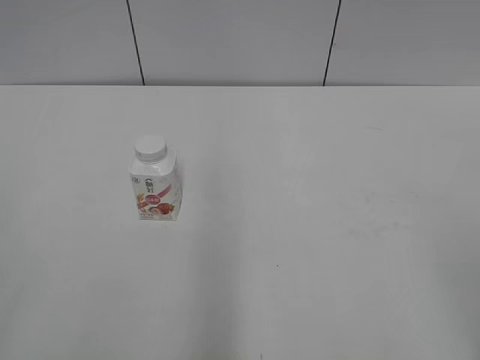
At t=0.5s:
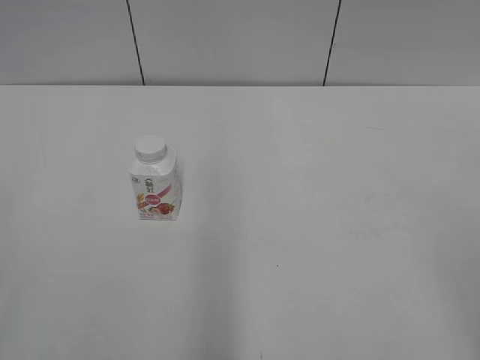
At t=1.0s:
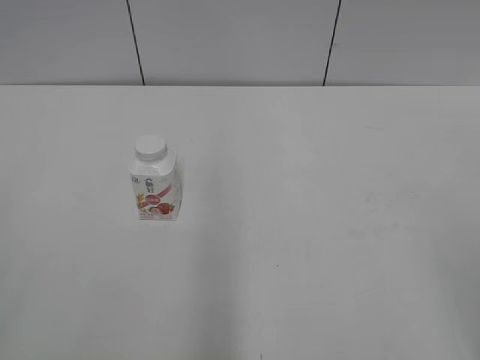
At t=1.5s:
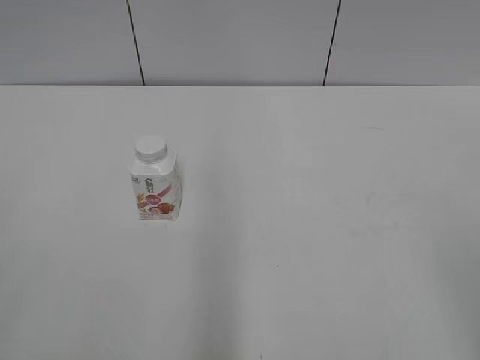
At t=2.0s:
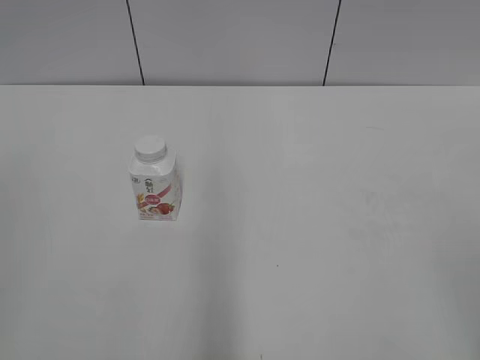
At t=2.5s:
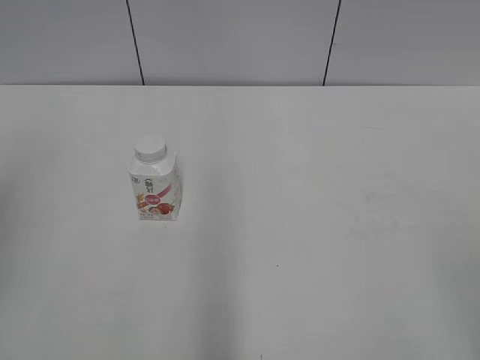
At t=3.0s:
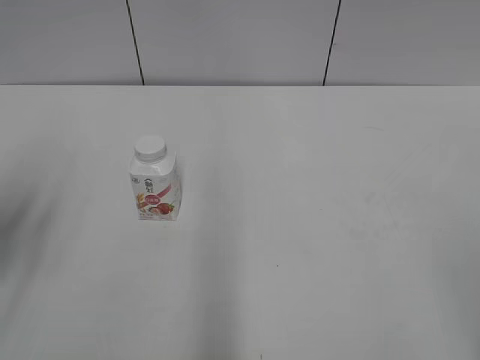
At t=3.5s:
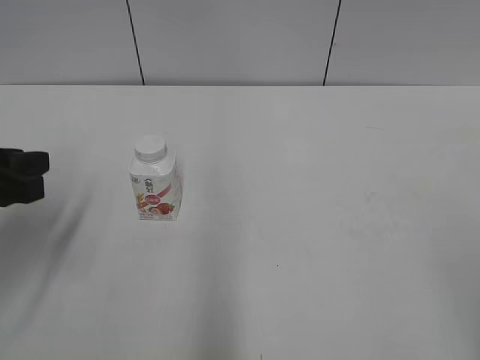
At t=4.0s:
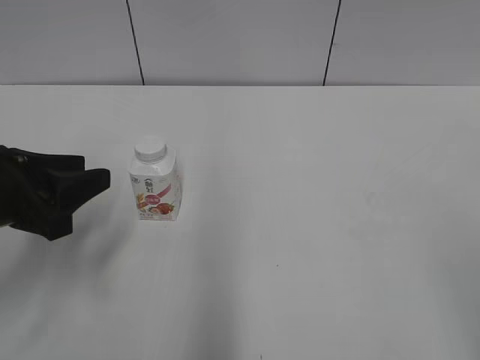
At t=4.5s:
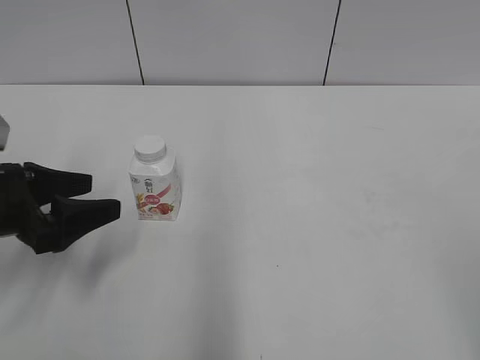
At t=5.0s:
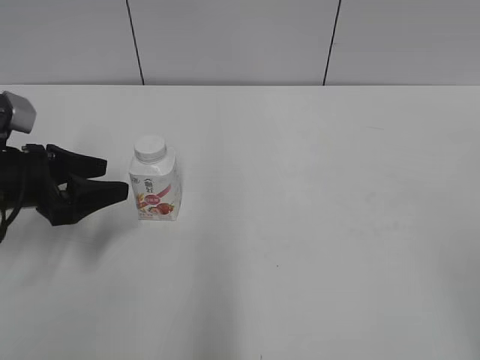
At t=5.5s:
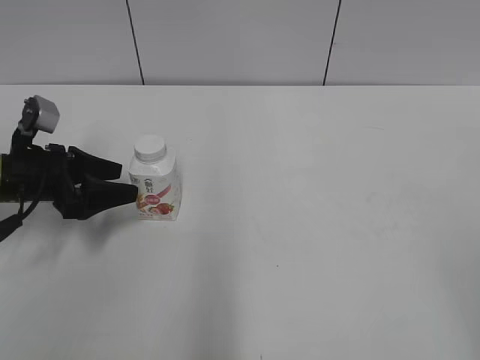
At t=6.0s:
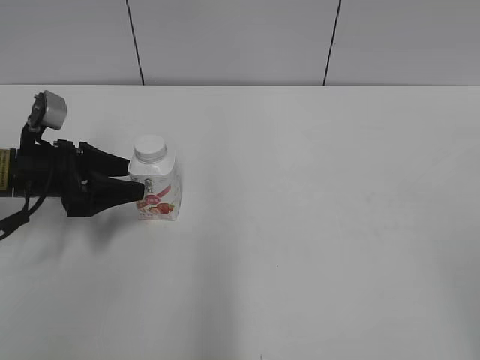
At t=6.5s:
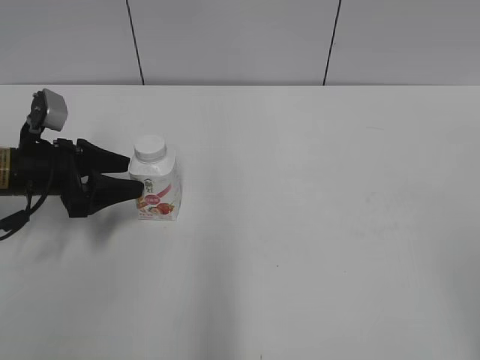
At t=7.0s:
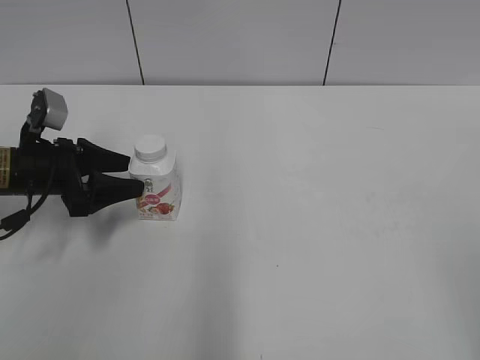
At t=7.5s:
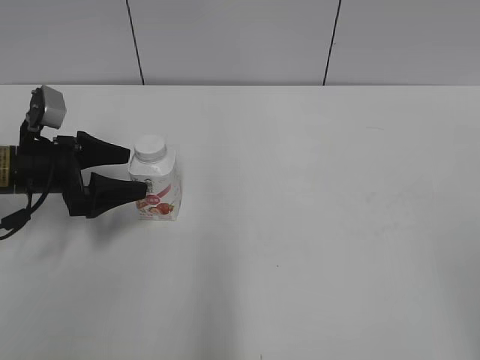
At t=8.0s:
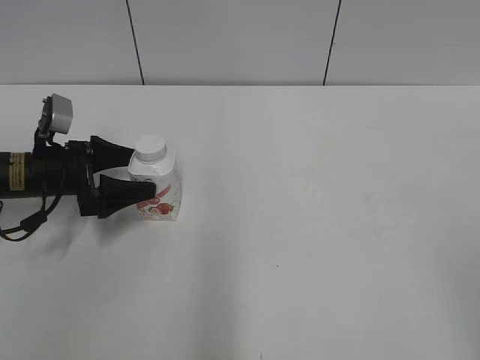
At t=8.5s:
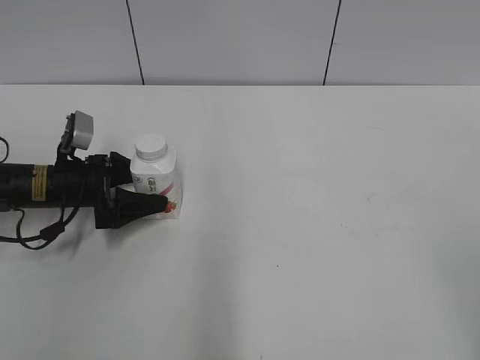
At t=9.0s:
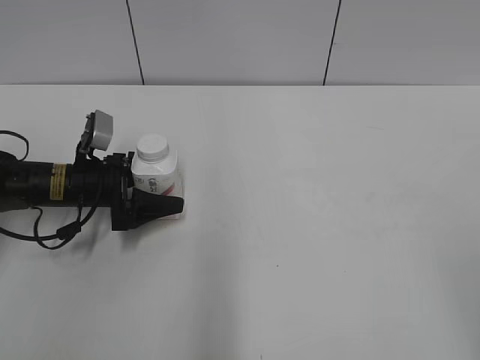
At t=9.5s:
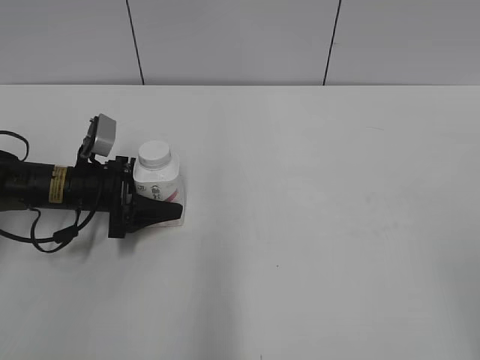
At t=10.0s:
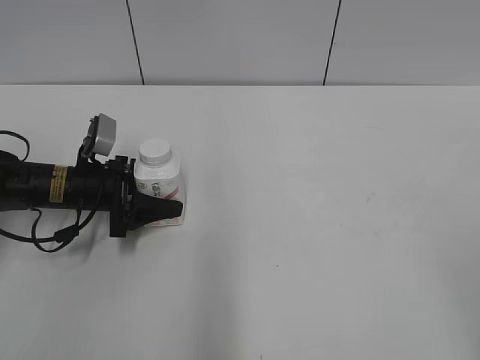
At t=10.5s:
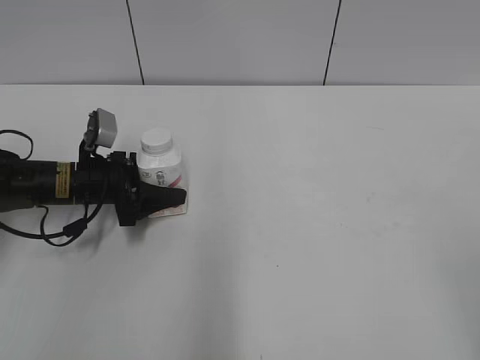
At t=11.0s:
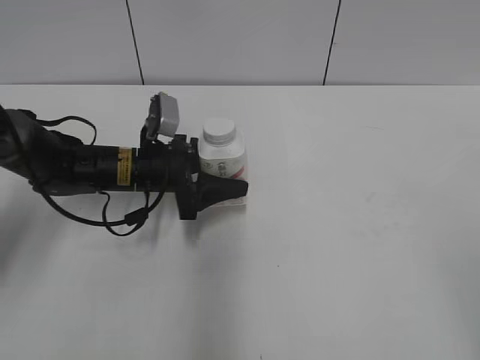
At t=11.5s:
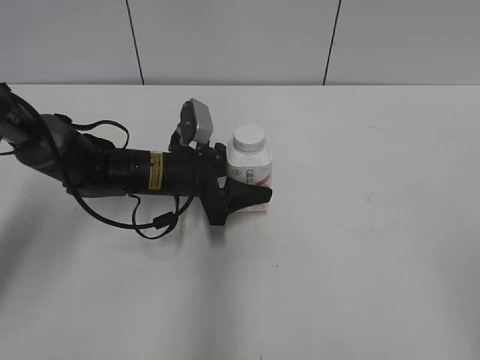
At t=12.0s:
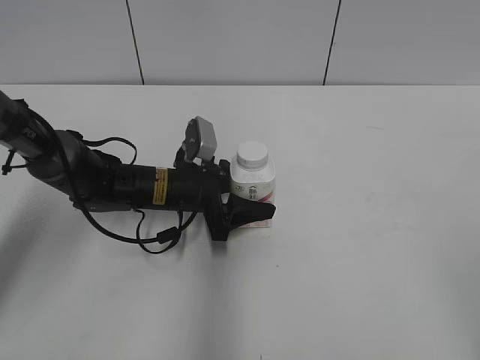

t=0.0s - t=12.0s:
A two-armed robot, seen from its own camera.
Step, t=0.0s - t=10.0s: Grab the Yili Changqing with the left hand.
t=2.0s - t=4.0s: The left gripper shifts roughly 25 cm forward, downward and to the right.
t=4.0s - t=6.0s: The left gripper is displaced forward and downward by some 15 cm, and opens its fingers.
t=6.0s - t=8.0s: The grippers make only small movements.
t=8.0s - t=10.0s: The left gripper closes.
t=10.0s - t=12.0s: The left gripper shifts some 15 cm to the right.

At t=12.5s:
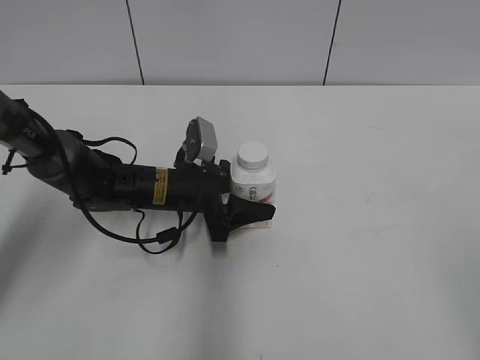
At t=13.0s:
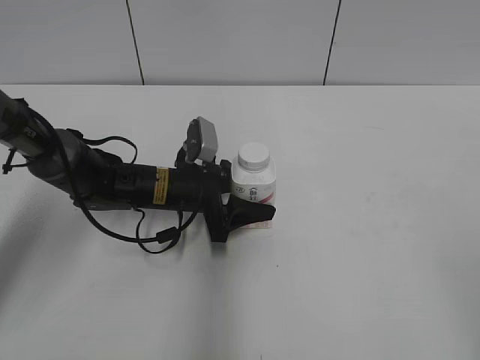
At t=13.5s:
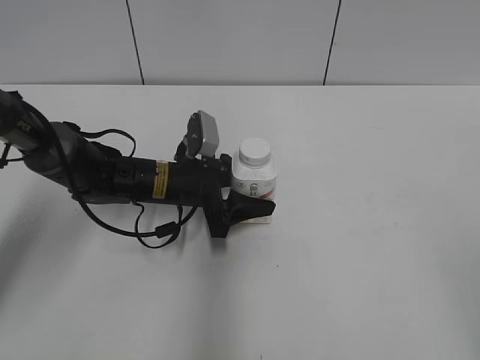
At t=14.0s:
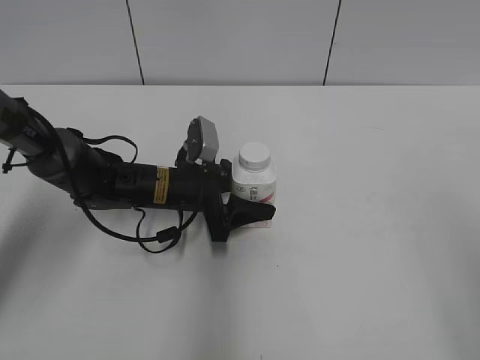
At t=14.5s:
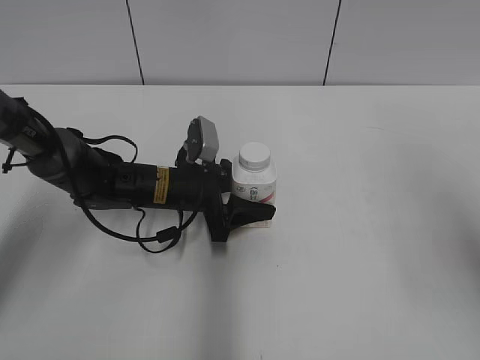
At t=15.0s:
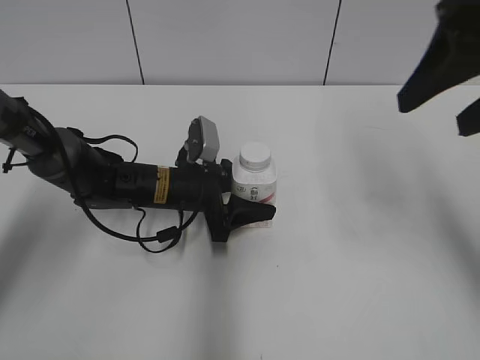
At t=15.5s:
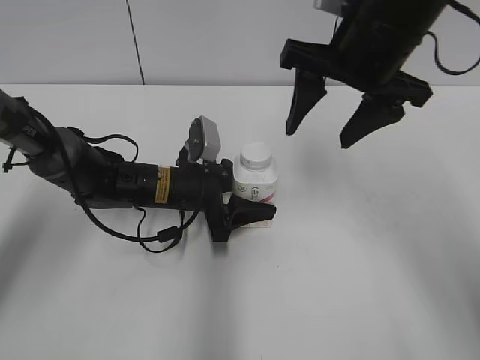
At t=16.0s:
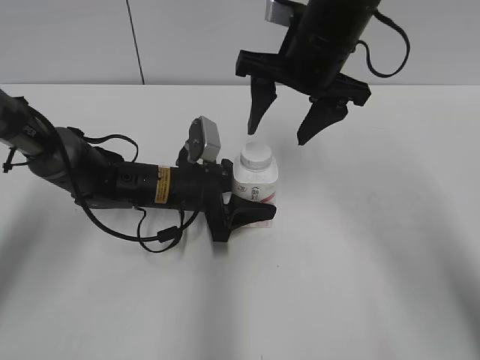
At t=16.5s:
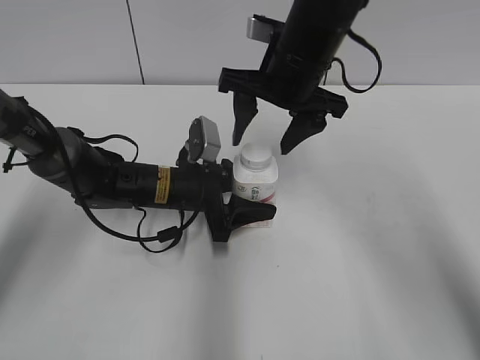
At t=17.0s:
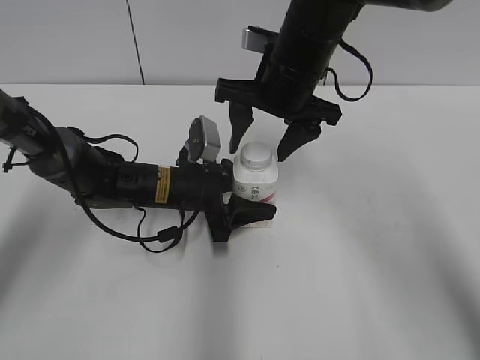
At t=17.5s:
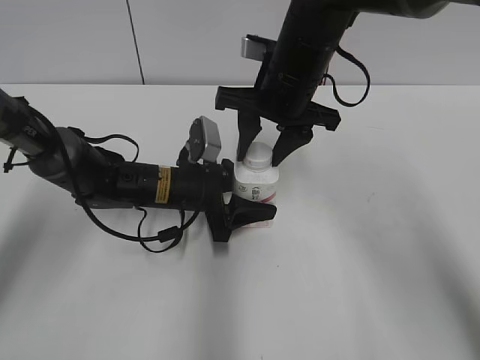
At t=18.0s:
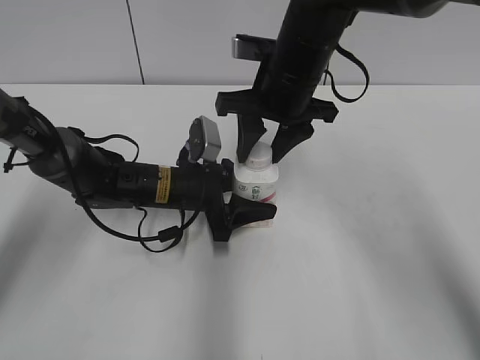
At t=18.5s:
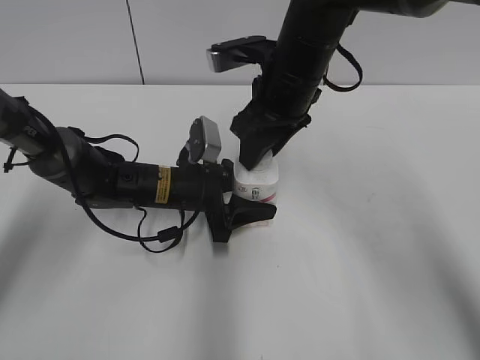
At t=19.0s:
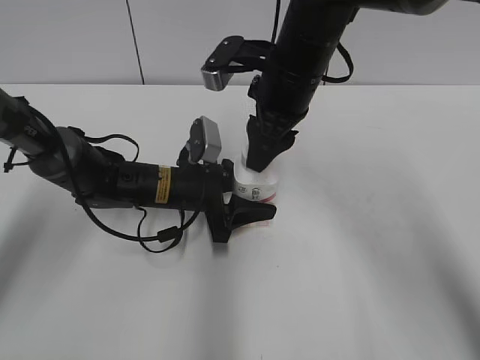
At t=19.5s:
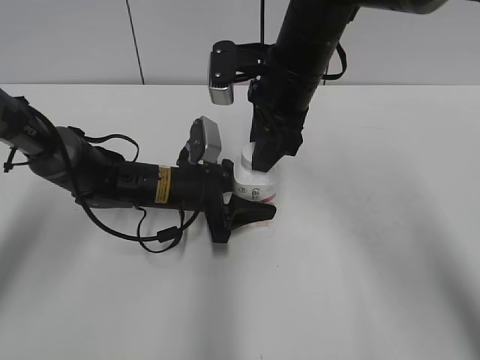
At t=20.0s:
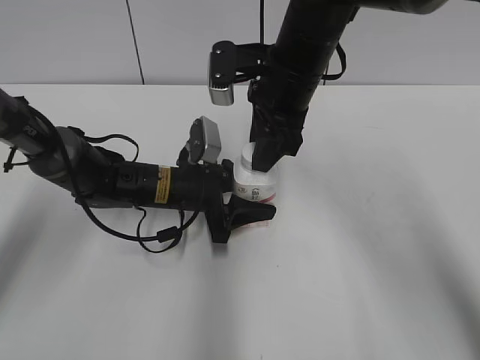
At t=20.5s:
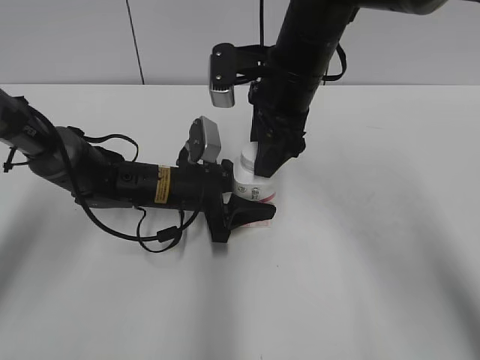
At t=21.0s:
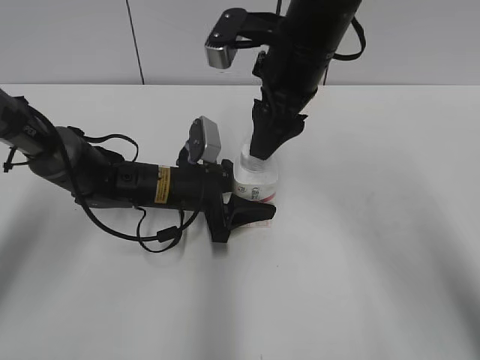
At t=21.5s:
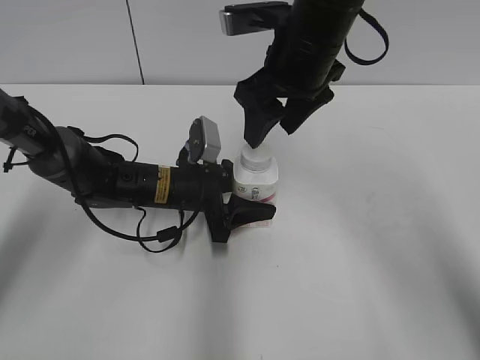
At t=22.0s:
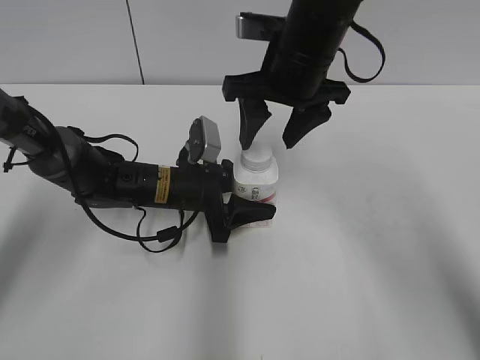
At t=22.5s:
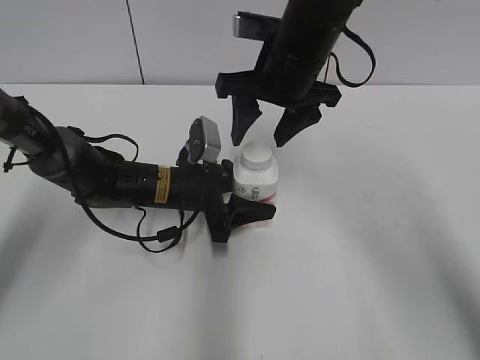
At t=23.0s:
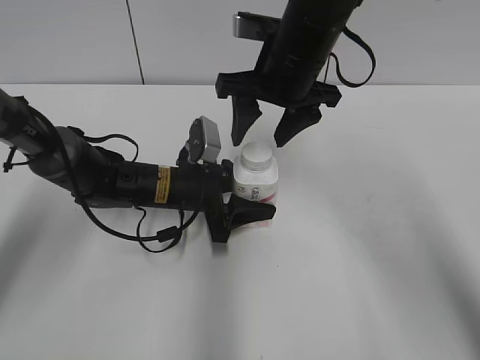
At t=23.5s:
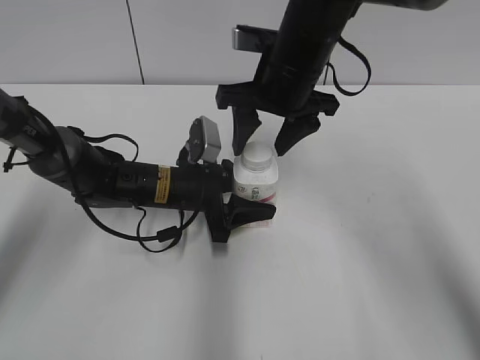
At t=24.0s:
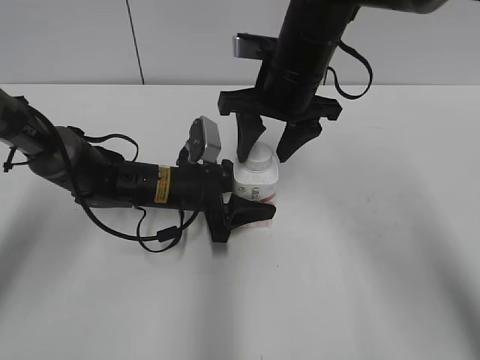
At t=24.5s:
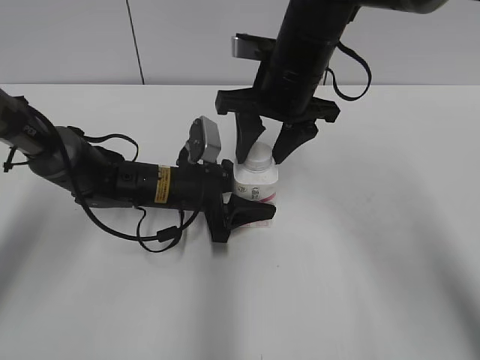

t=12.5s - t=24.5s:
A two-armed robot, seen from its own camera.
t=12.5s - t=14.5s: The right gripper travels forward and upward by roughly 15 cm.
t=14.5s - t=16.5s: The right gripper is displaced forward, to the left and downward by some 35 cm.
t=16.5s - t=18.5s: The right gripper closes.
t=18.5s - t=20.5s: The right gripper opens up.
t=22.5s - t=24.5s: The grippers stay close to where they were, moving slightly.

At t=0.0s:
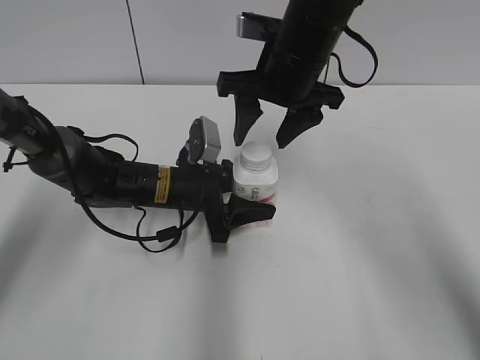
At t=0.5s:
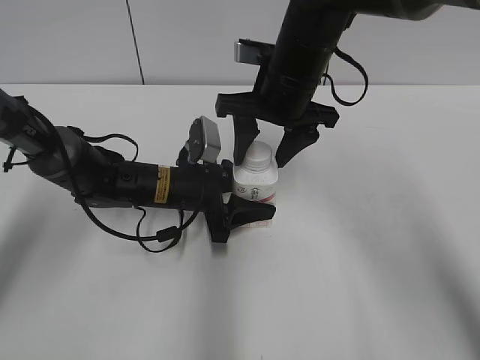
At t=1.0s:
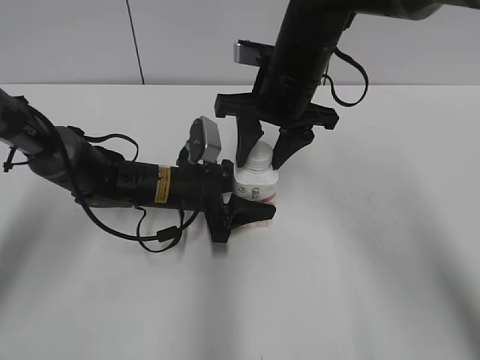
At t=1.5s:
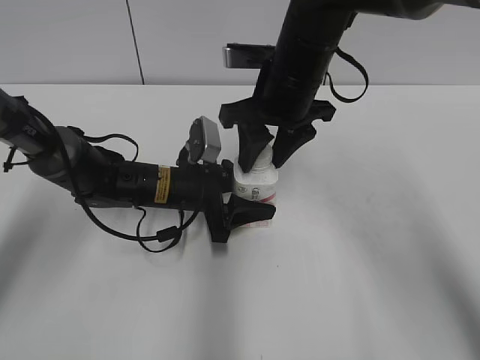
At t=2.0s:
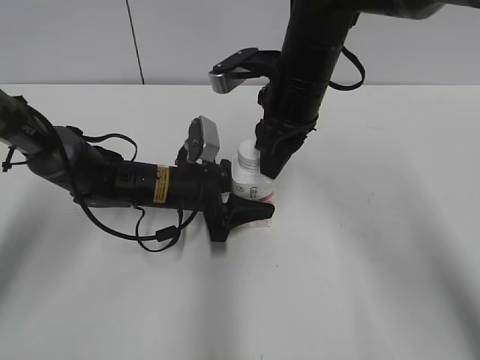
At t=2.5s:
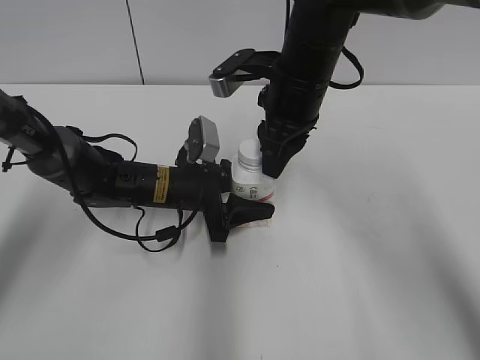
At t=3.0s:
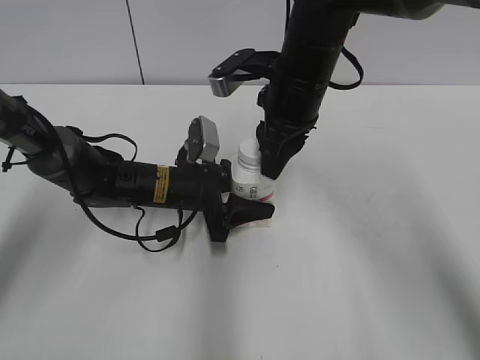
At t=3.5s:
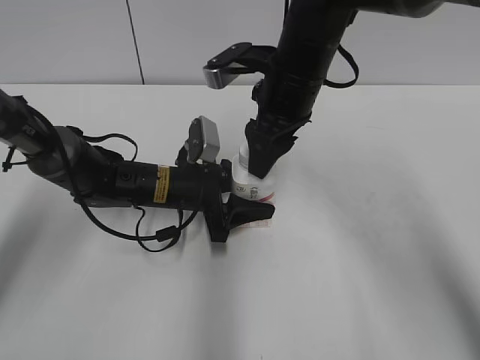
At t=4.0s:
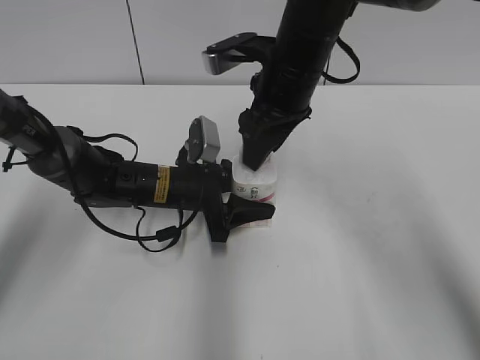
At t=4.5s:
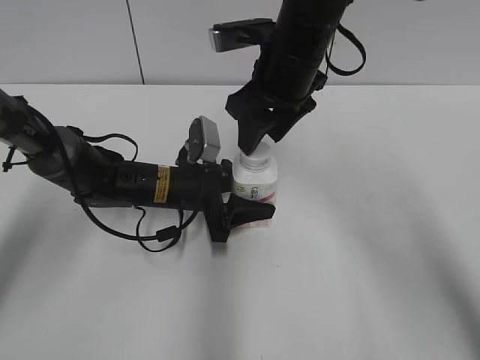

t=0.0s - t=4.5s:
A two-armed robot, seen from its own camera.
t=0.0s - t=2.0s: The right gripper closes its fingers.
t=2.0s - t=4.5s: The right gripper opens up.
